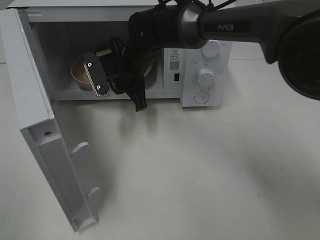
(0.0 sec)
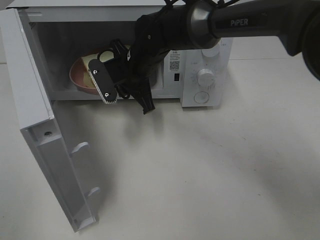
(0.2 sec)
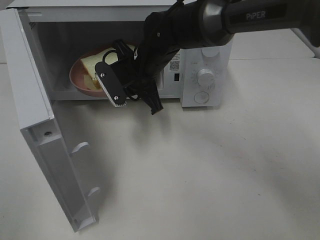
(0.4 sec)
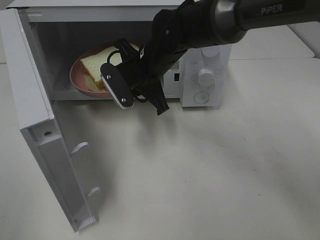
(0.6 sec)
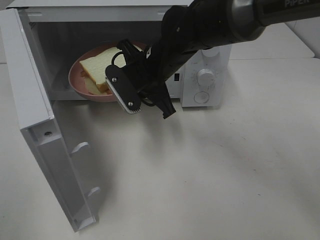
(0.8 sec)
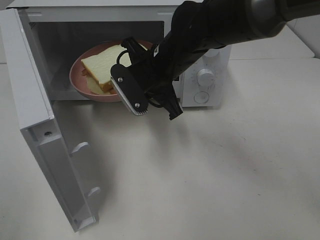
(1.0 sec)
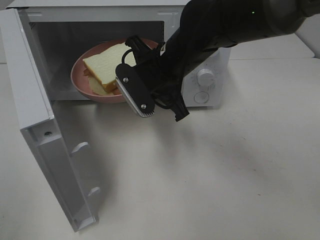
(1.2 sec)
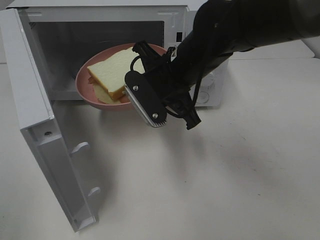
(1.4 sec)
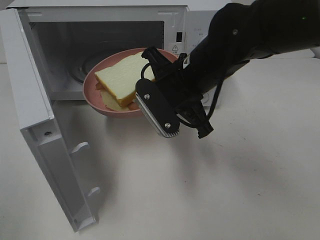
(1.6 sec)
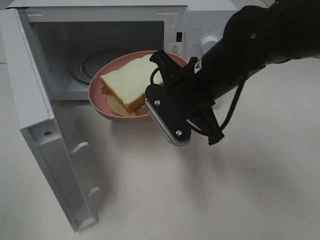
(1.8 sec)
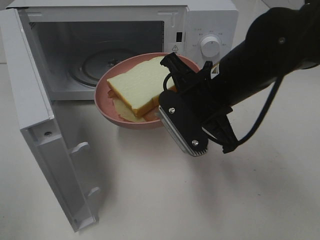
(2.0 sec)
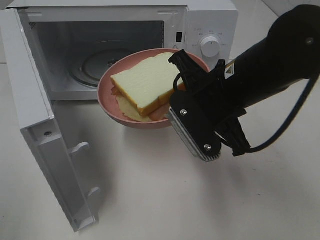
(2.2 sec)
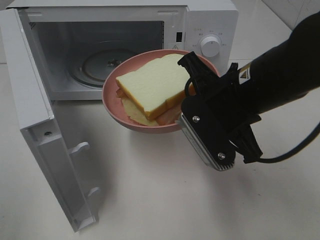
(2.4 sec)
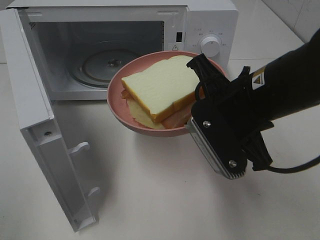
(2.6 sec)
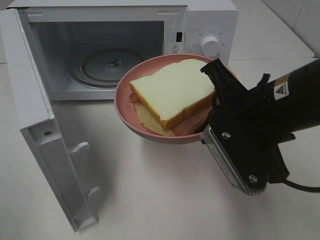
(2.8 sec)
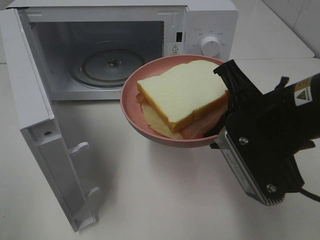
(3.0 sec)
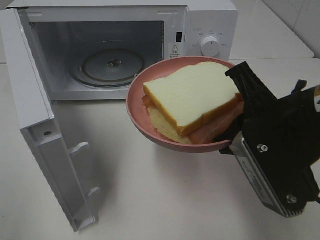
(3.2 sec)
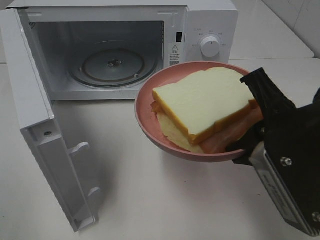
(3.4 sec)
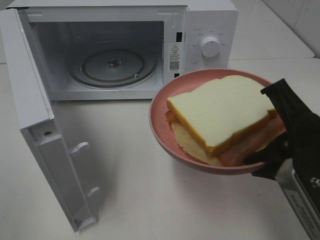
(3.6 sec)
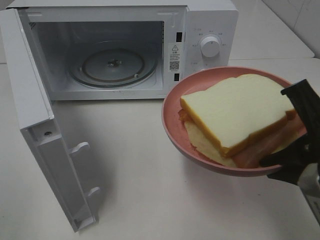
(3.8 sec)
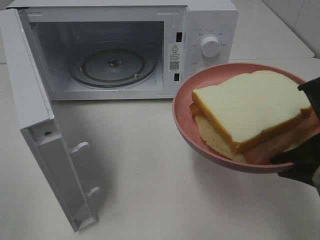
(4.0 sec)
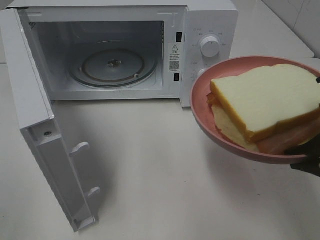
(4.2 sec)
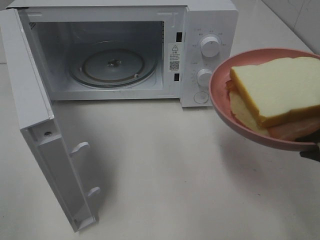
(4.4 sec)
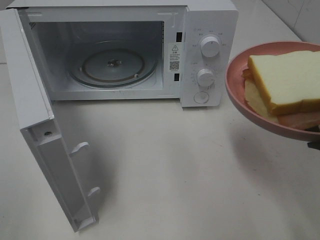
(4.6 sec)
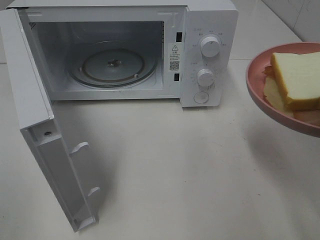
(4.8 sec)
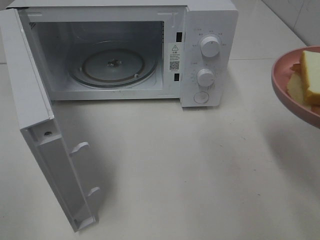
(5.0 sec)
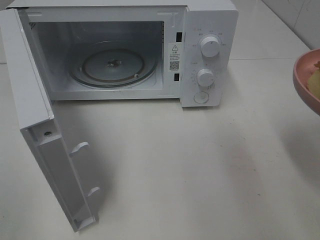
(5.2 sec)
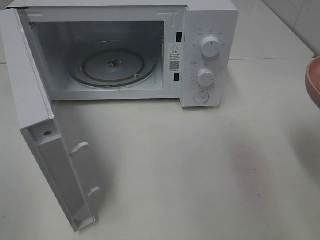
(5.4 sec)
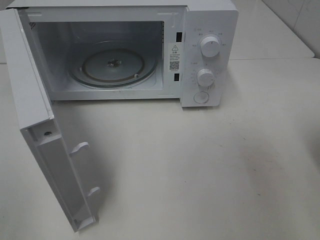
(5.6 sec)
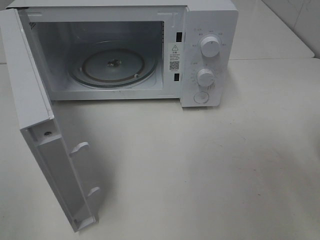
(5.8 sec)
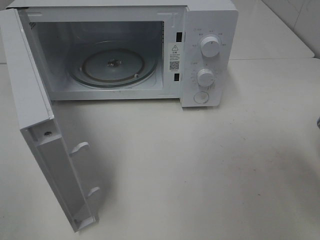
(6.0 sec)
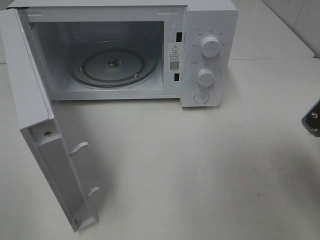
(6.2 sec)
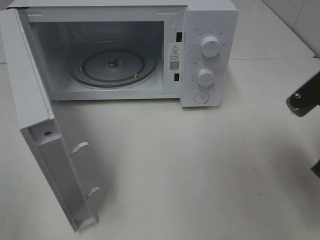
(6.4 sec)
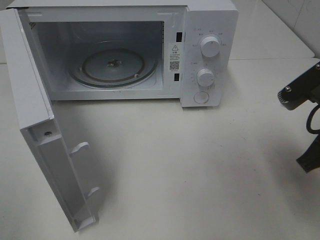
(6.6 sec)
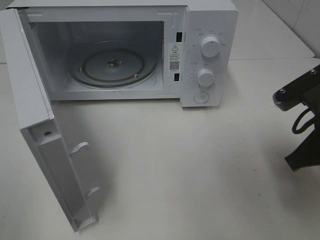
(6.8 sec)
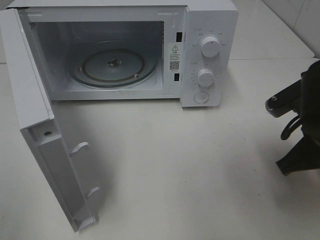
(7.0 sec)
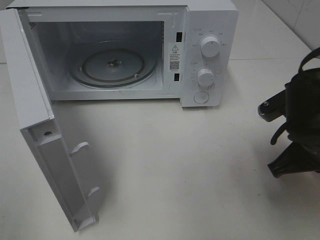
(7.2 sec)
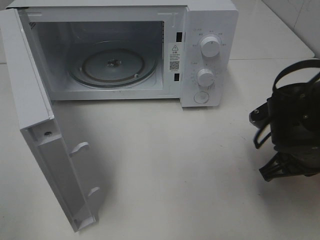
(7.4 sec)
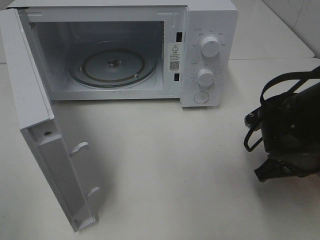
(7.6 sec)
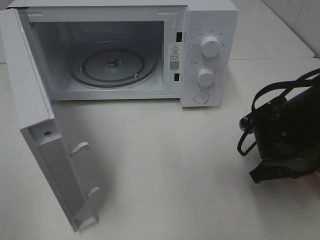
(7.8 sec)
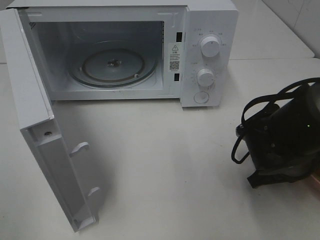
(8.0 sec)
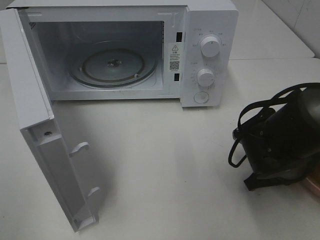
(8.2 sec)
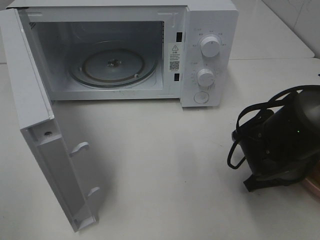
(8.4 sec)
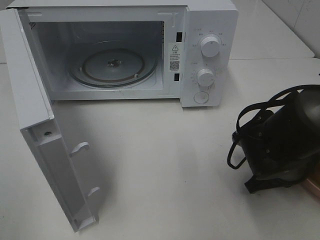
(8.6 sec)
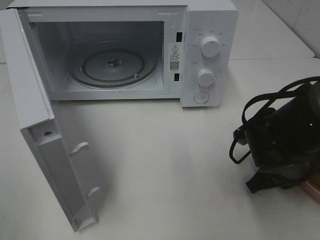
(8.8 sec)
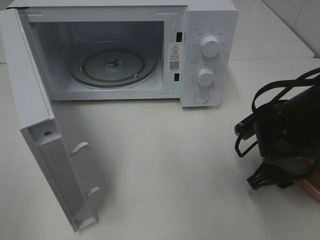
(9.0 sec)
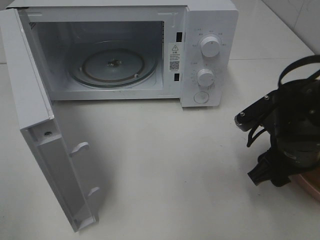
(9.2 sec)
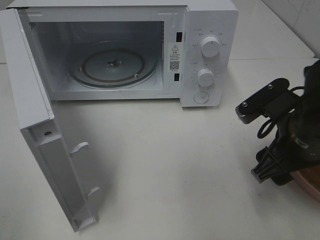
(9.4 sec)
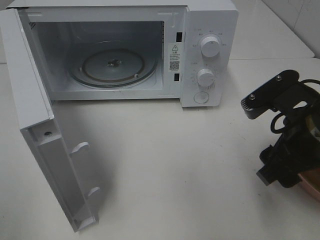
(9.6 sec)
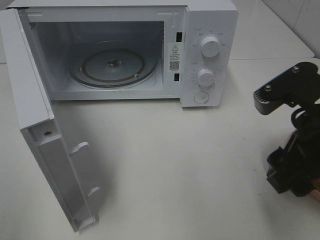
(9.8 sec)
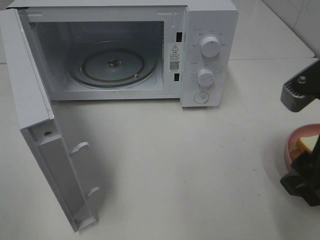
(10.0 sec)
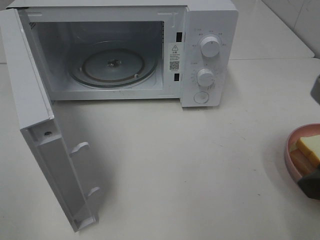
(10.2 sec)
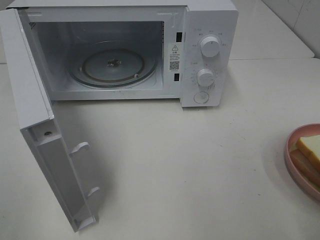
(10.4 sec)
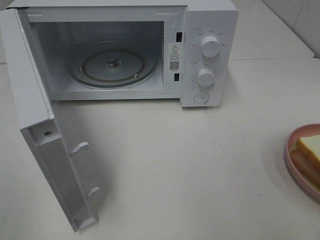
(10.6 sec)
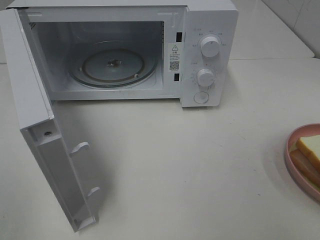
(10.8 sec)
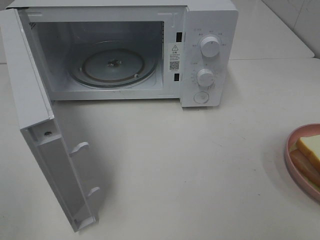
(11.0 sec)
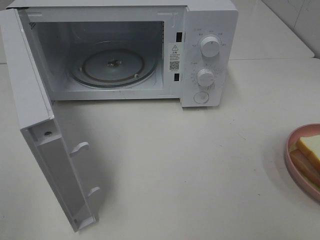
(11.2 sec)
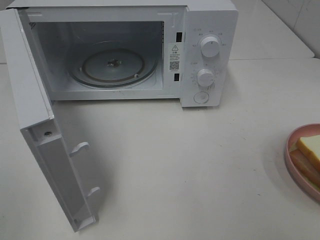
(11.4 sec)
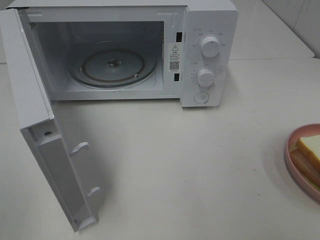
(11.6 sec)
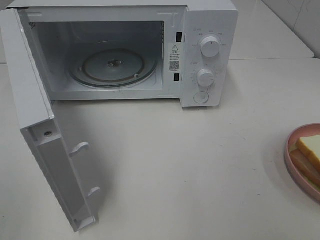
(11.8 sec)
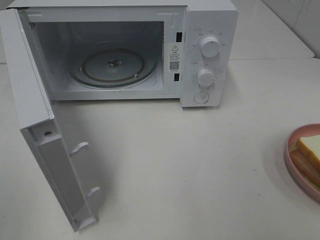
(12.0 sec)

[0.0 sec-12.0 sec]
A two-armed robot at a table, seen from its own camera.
Task of the whole recording: Heat Sandwich.
Step, 0.0 sec to 9.2 sec: Right hand: place the plate on the table.
0.0 sec to 1.6 sec: The right gripper travels backward and to the right by approximately 15 cm.
1.6 sec to 3.0 sec: The right gripper moves backward and to the right, roughly 15 cm.
3.0 sec to 4.4 sec: The right gripper heads to the right and backward, covering approximately 10 cm.
6.0 sec to 7.6 sec: The right gripper heads downward, forward and to the left, covering approximately 15 cm.
7.6 sec to 9.0 sec: The right gripper opens its fingers.
9.0 sec to 10.4 sec: The right gripper shifts about 20 cm upward and backward.

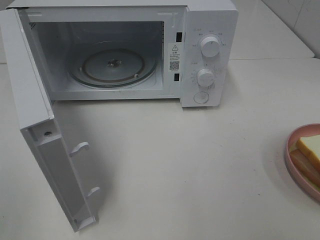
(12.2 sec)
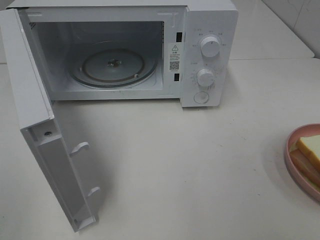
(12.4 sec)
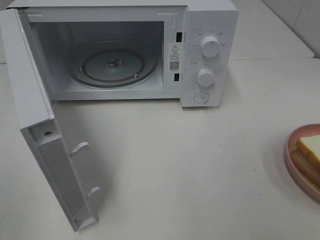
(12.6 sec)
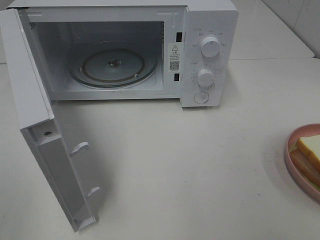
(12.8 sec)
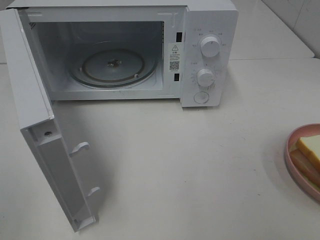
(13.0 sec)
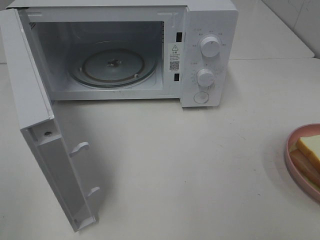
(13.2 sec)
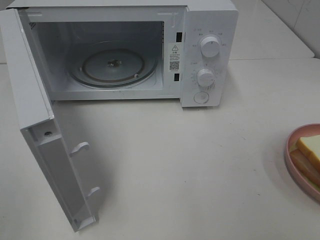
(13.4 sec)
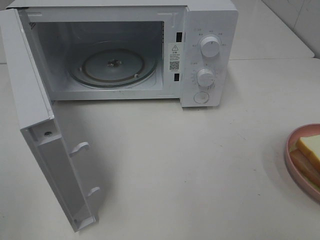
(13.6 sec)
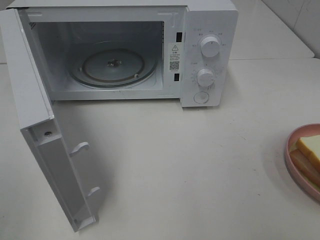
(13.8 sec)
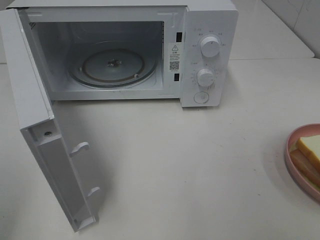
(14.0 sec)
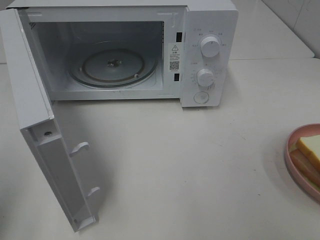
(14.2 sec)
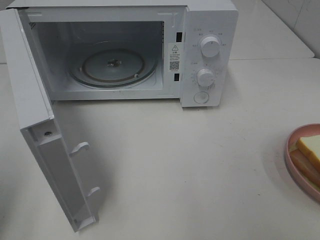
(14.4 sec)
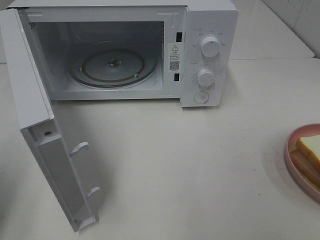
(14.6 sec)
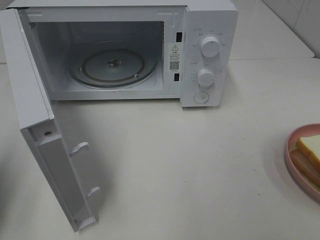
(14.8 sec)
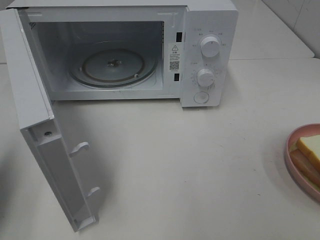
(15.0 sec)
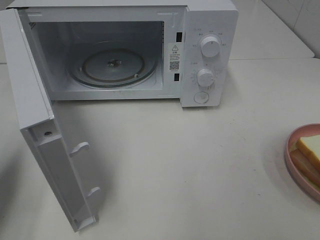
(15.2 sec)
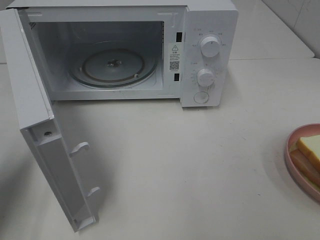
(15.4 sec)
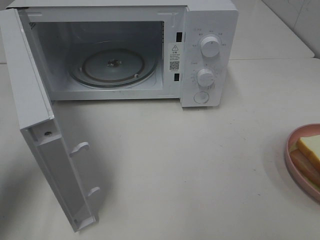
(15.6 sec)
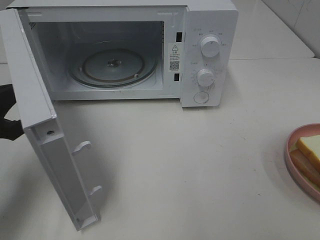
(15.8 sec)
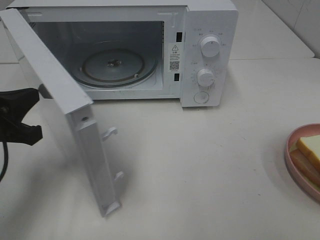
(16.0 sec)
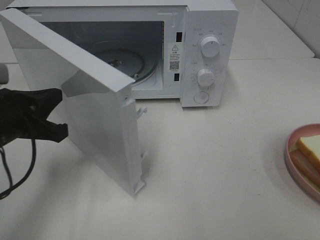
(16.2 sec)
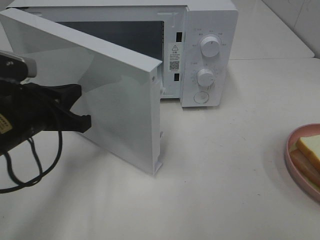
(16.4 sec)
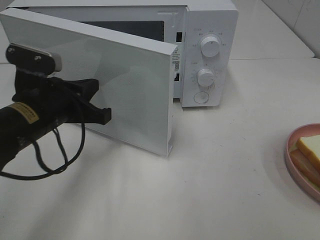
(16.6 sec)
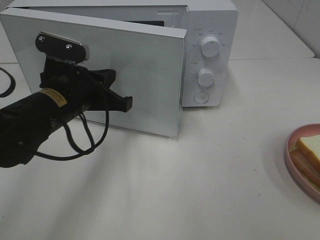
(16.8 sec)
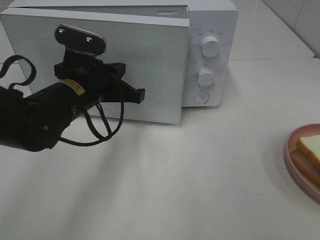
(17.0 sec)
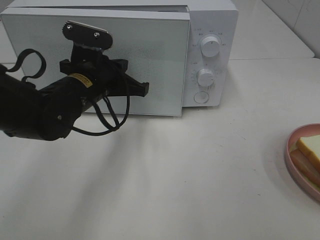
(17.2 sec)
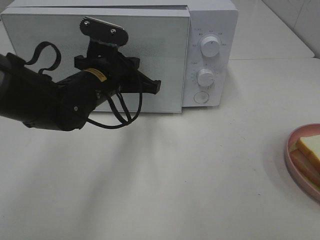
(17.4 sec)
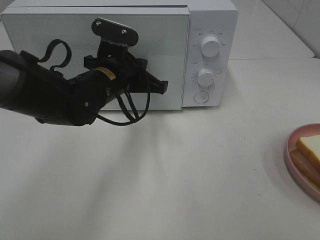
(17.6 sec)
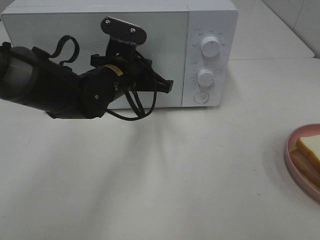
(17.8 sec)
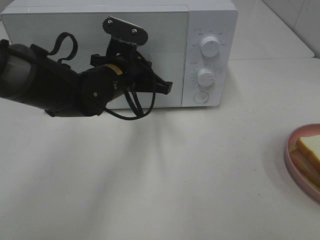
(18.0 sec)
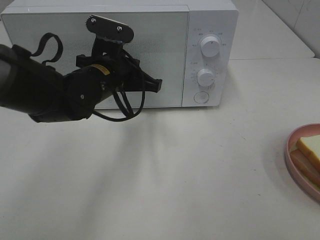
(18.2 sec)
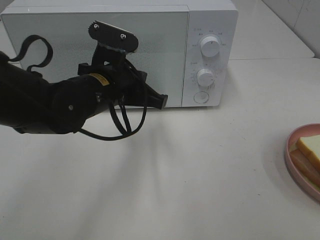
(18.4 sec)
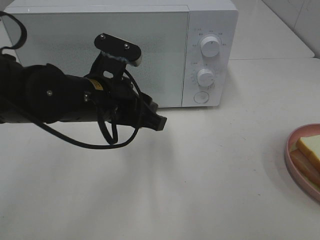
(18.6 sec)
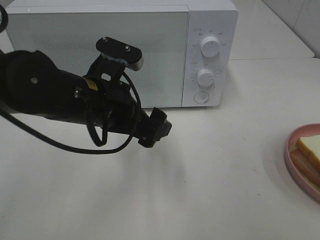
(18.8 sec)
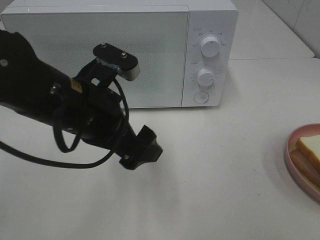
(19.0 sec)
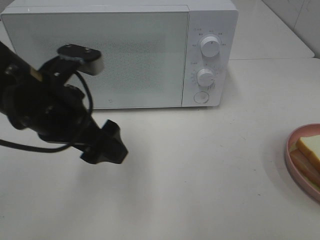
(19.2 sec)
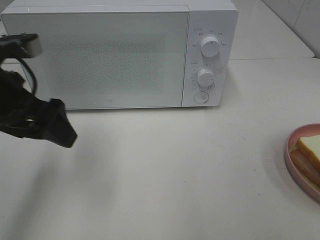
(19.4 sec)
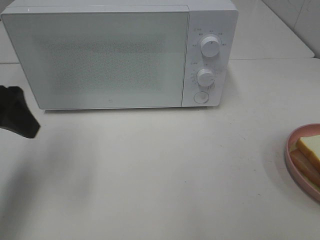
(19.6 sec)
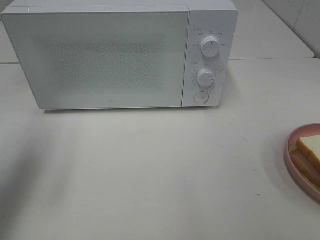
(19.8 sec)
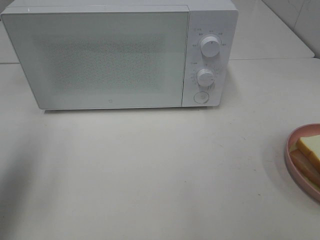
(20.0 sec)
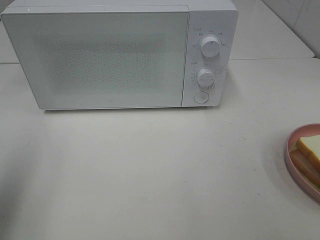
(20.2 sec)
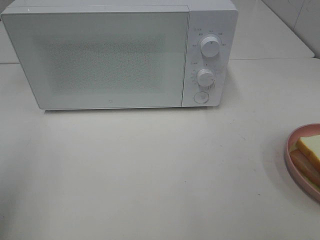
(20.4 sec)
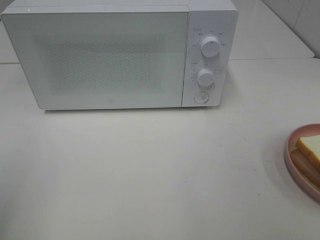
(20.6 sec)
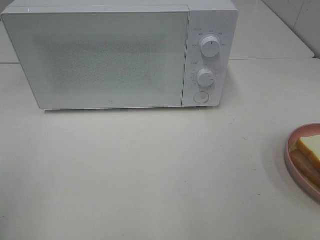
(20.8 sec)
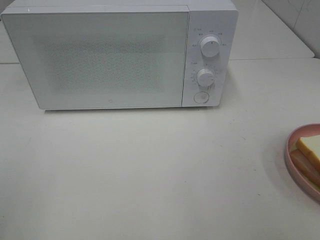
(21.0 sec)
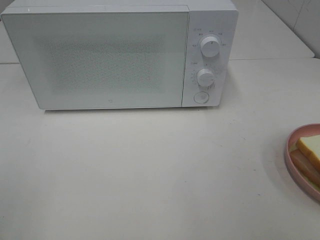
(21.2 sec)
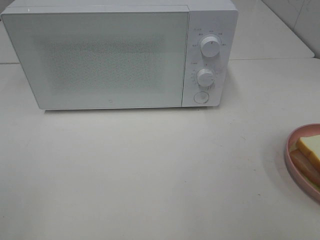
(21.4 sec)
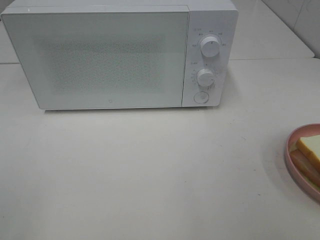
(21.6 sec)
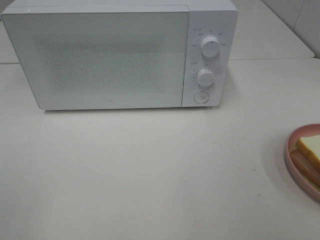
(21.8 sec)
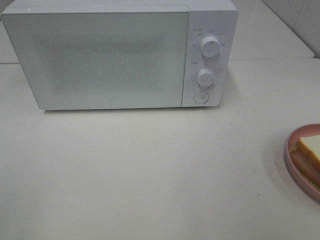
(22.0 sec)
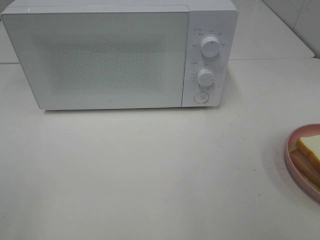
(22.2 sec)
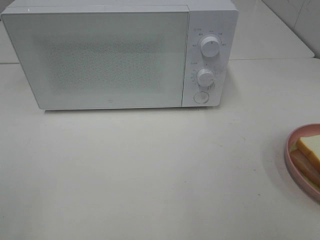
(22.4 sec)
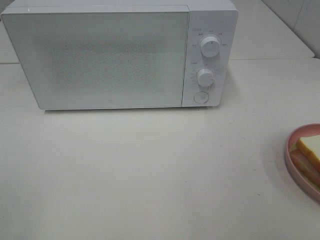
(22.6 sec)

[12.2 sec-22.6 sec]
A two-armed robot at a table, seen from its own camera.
Task of the whole recording: Heat Sandwich.
Step, 12.2 sec to 18.4 sec: Left hand: close the microwave door.
12.2 sec to 13.6 sec: Neither gripper changes place.
13.6 sec to 15.2 sec: The left gripper shifts about 20 cm forward and downward, and closes its fingers.
15.2 sec to 16.6 sec: The left gripper shifts some 20 cm to the right and forward.
16.6 sec to 18.2 sec: The left gripper moves to the right and forward, about 10 cm.
18.2 sec to 19.6 sec: The left gripper is displaced to the left, upward and backward by about 20 cm, and opens up.
19.6 sec to 21.2 sec: The left gripper shifts approximately 20 cm backward.
